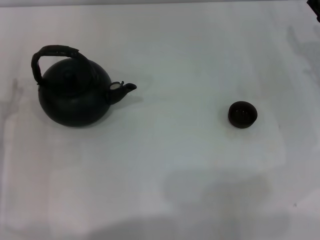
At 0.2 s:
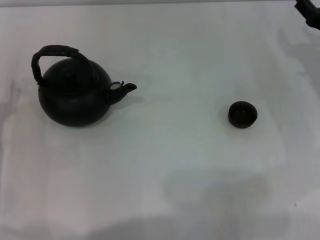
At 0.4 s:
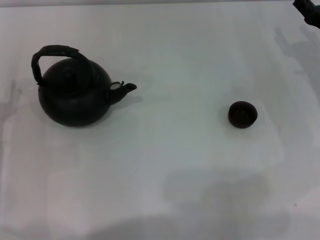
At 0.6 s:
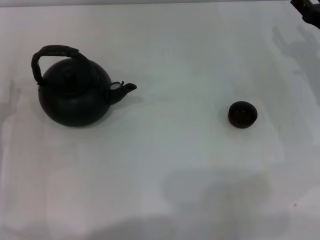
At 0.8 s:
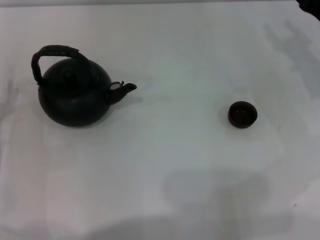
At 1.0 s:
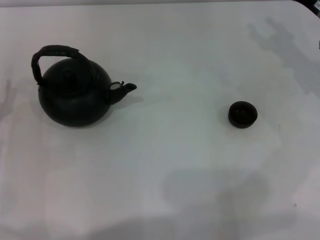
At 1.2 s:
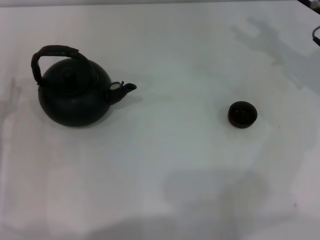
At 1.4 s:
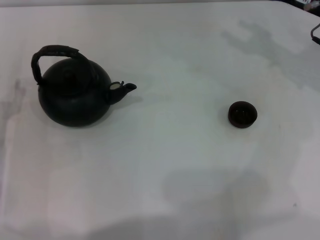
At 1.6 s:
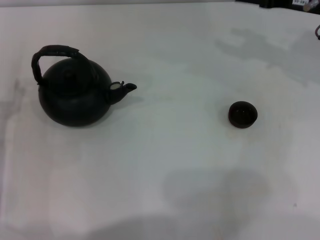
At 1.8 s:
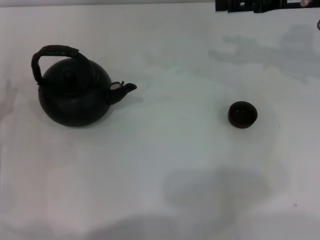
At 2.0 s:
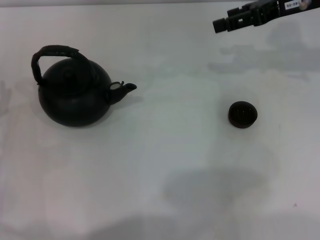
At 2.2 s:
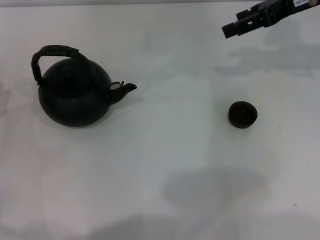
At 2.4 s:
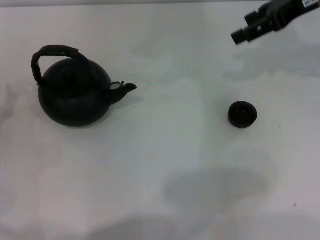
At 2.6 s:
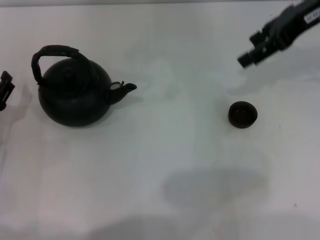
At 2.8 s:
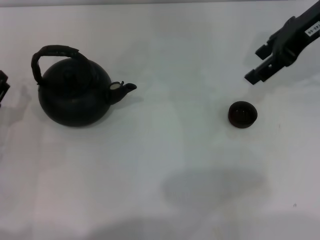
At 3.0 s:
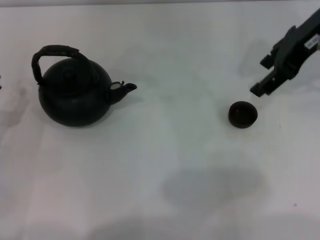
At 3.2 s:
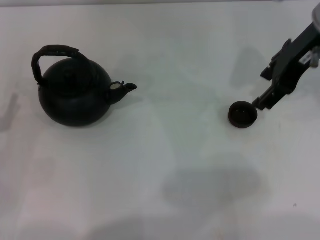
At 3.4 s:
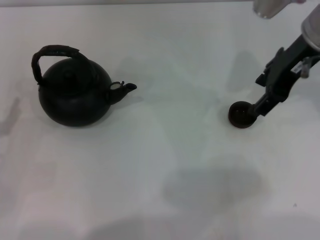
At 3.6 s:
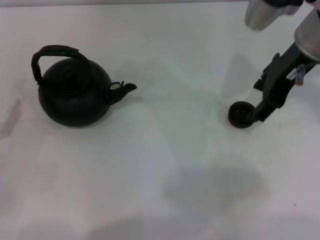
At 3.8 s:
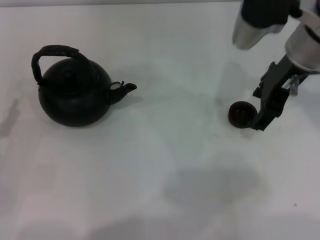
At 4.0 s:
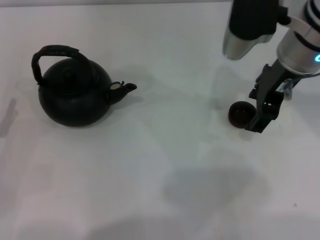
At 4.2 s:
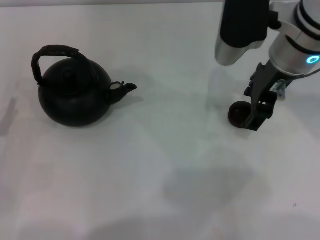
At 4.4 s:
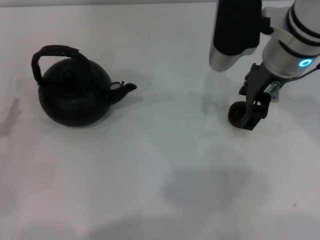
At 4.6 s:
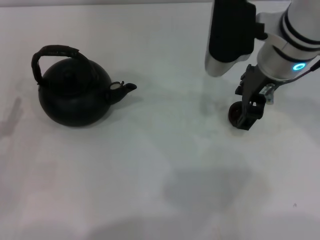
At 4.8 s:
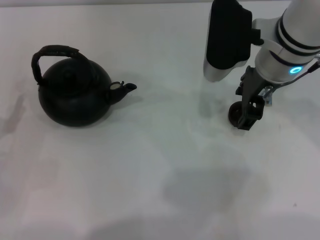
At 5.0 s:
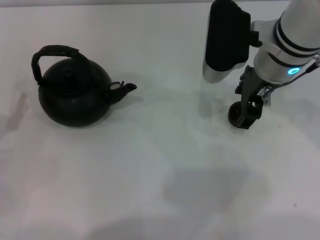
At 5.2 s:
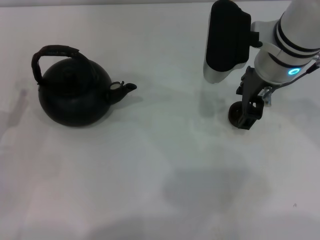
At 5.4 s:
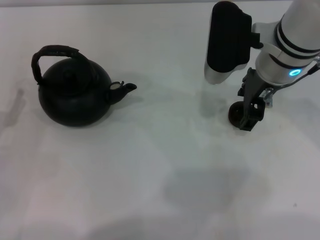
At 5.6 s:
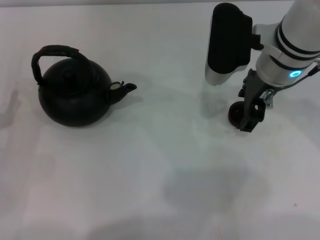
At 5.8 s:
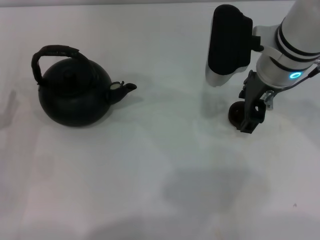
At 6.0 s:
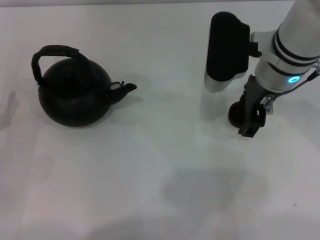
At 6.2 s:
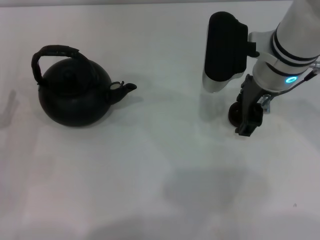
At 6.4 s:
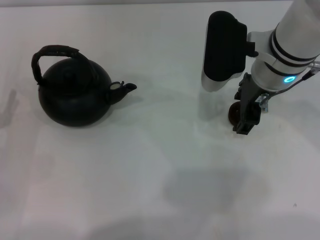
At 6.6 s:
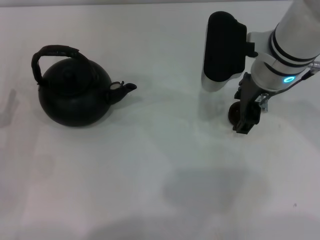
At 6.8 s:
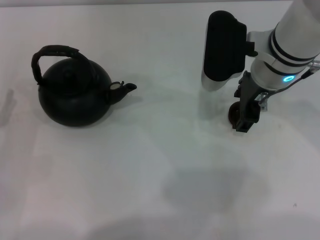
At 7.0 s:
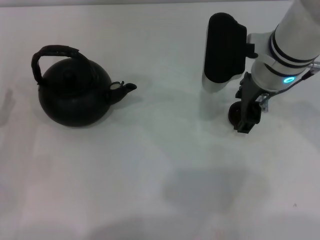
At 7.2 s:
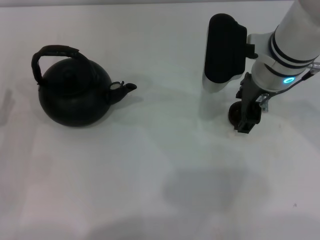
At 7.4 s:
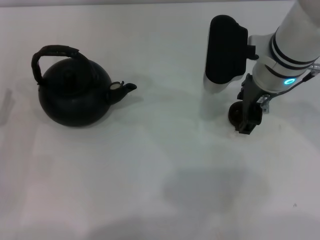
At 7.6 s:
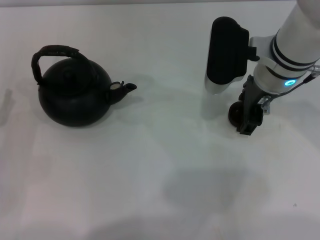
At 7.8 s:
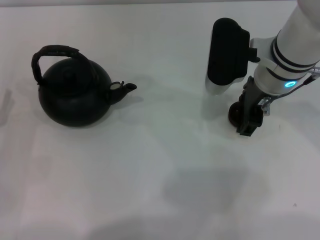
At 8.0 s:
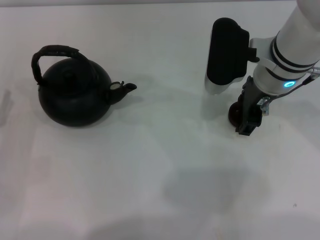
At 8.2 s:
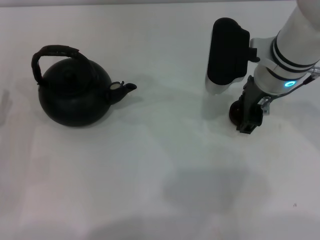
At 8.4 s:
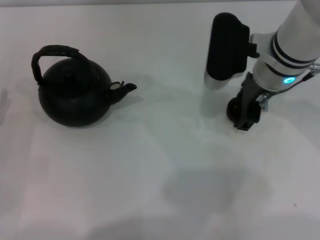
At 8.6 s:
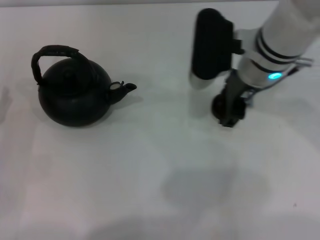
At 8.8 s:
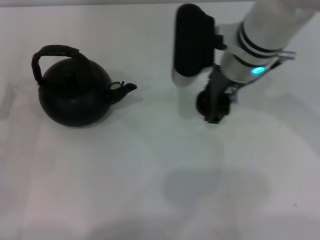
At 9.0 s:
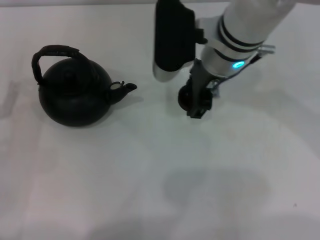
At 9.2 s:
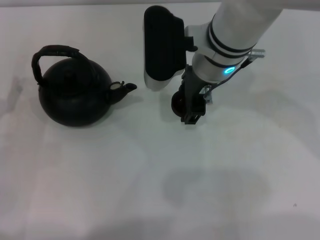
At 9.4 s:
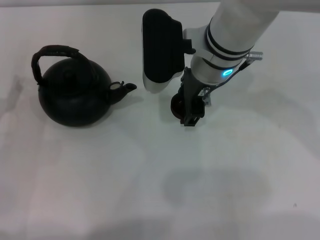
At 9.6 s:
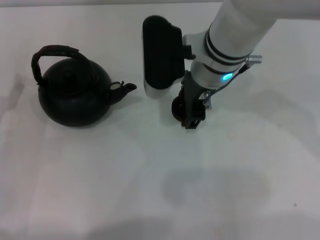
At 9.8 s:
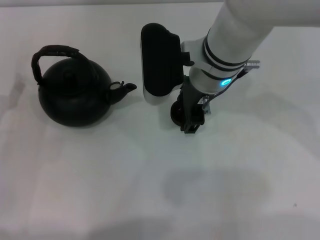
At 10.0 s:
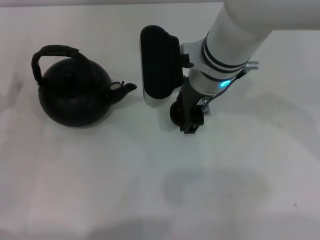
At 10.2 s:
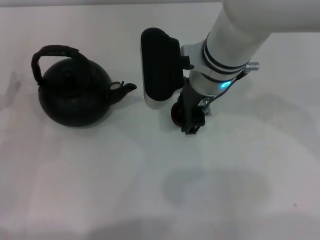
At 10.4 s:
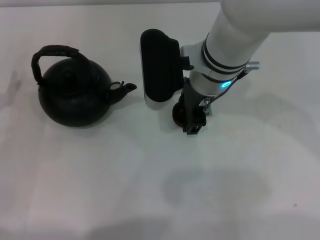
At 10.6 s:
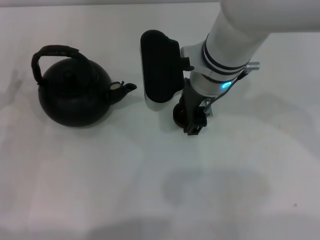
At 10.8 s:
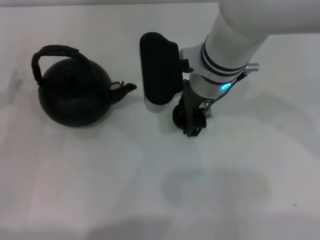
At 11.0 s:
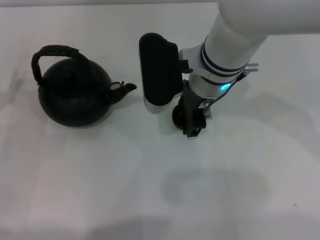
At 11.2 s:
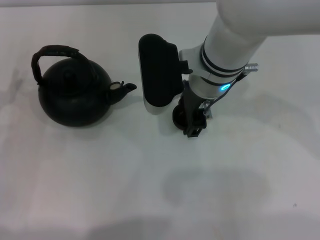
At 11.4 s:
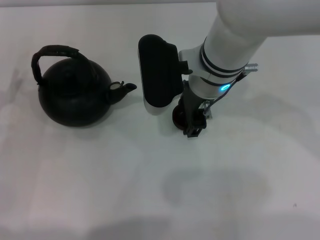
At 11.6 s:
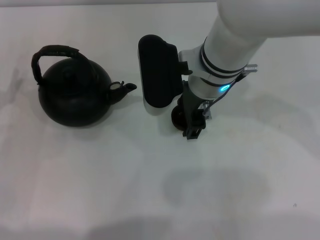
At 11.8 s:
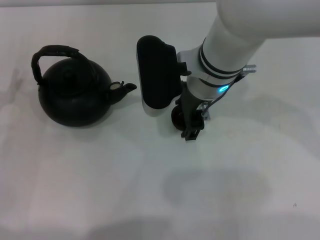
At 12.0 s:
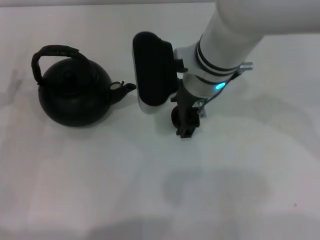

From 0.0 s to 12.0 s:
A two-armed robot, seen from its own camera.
Task of the whole recording: Grasp the handle of the teapot with one hand and pour tea into the teacup.
Step, from 0.0 s to 8.4 s: Pick up the teacup with the right gripper.
From 0.0 s to 1.6 s: The right gripper shifts some 10 cm upward and forward.
From 1.6 s to 3.0 s: The right gripper goes about 10 cm upward and to the left.
From 3.0 s to 4.4 s: The right gripper is displaced to the left and downward by approximately 10 cm.
From 4.4 s to 7.6 s: There are only small adjustments of the grippers.
From 7.6 s to 9.0 s: The right gripper travels to the left by roughly 5 cm.
From 9.0 s to 10.4 s: There are only small adjustments of the grippers.
From 10.4 s to 12.0 s: Neither gripper changes place.

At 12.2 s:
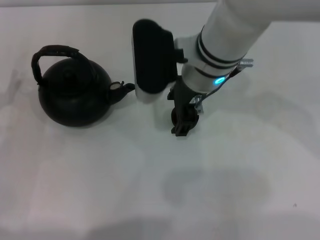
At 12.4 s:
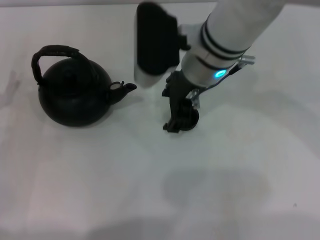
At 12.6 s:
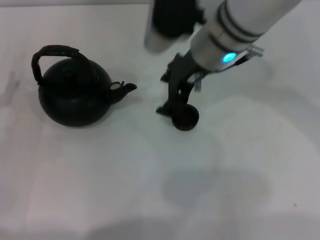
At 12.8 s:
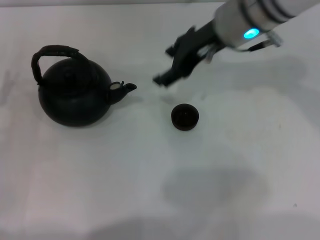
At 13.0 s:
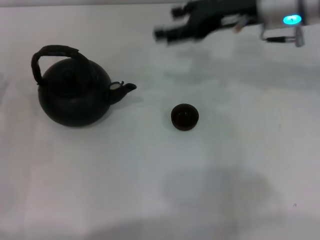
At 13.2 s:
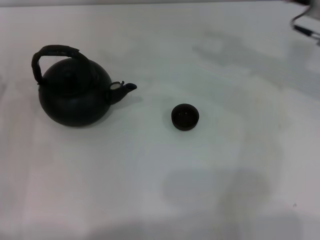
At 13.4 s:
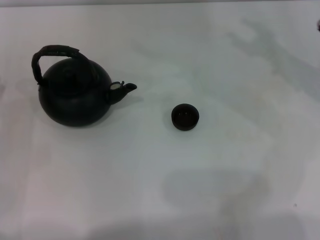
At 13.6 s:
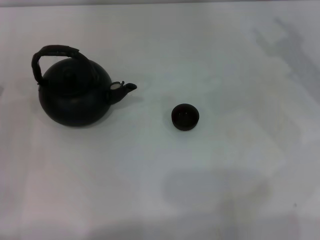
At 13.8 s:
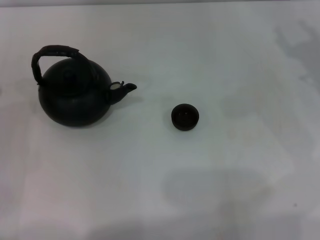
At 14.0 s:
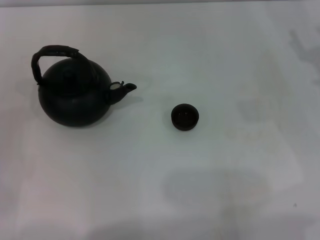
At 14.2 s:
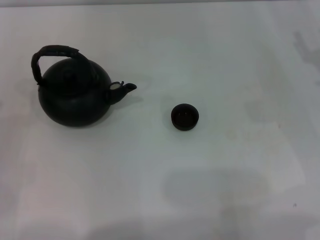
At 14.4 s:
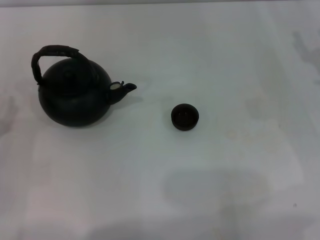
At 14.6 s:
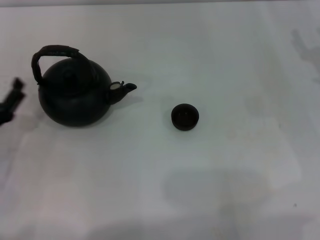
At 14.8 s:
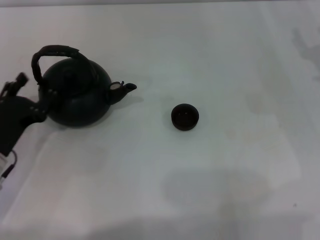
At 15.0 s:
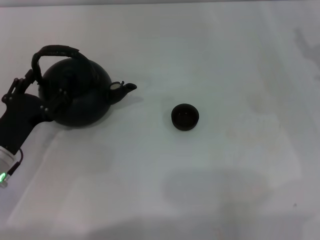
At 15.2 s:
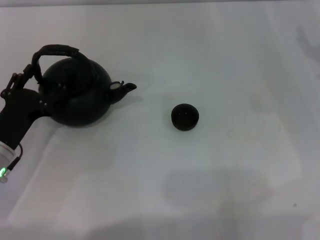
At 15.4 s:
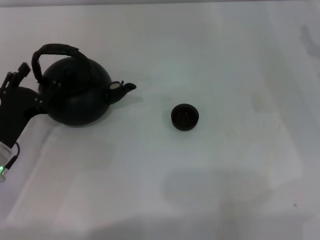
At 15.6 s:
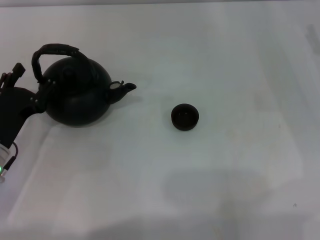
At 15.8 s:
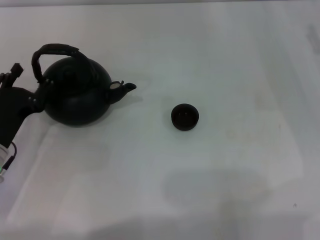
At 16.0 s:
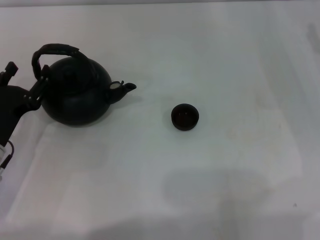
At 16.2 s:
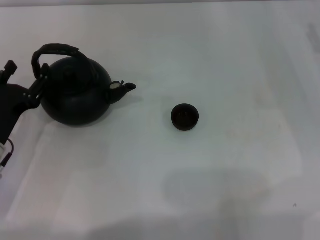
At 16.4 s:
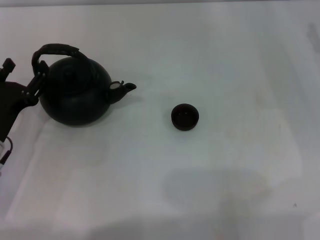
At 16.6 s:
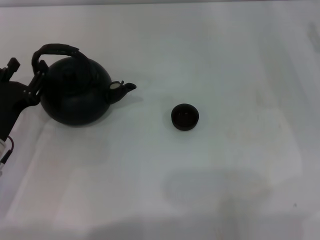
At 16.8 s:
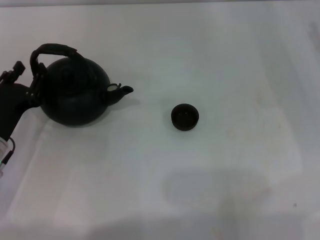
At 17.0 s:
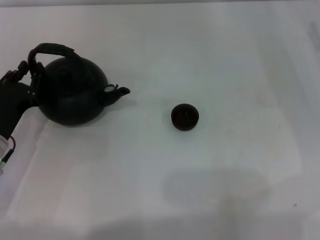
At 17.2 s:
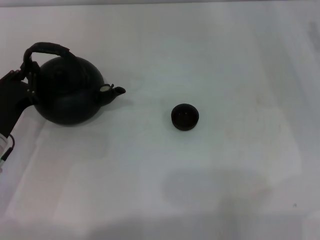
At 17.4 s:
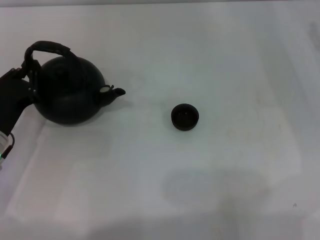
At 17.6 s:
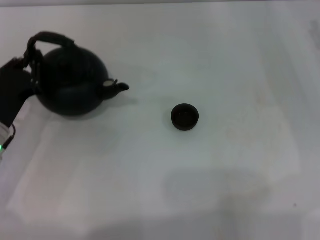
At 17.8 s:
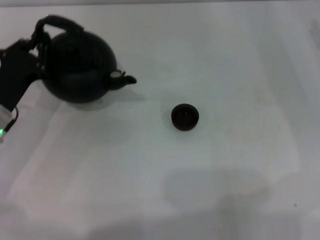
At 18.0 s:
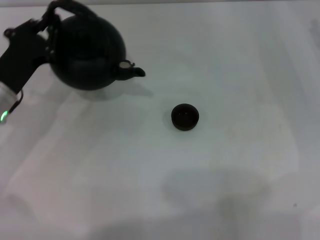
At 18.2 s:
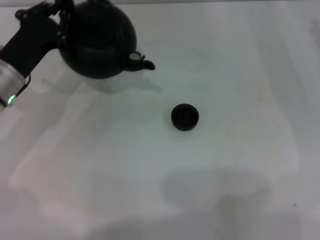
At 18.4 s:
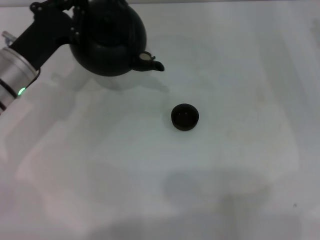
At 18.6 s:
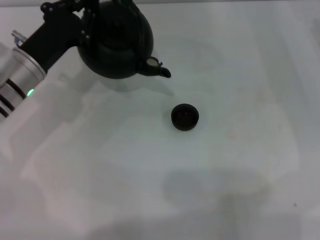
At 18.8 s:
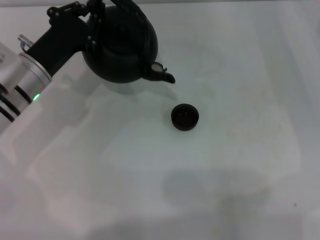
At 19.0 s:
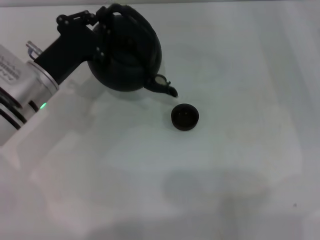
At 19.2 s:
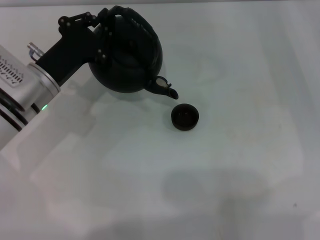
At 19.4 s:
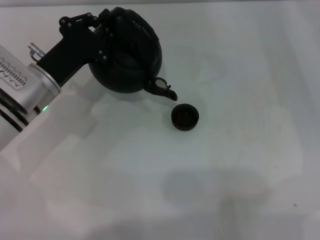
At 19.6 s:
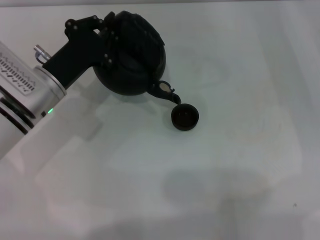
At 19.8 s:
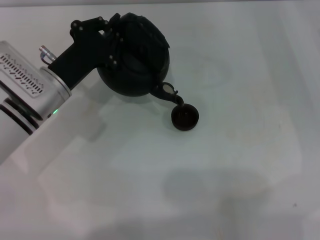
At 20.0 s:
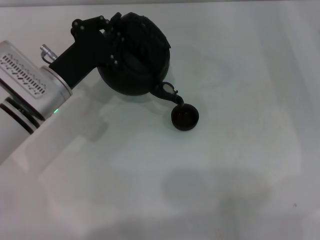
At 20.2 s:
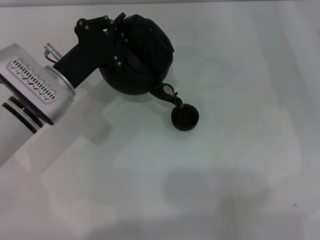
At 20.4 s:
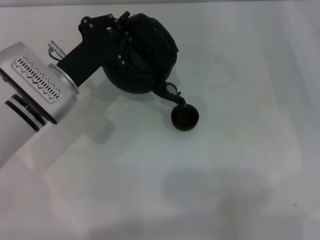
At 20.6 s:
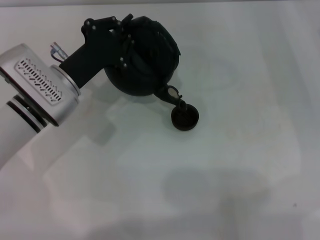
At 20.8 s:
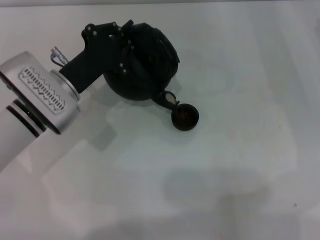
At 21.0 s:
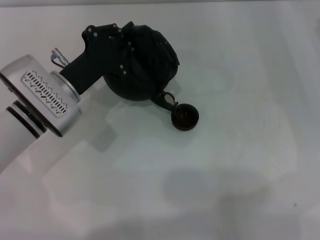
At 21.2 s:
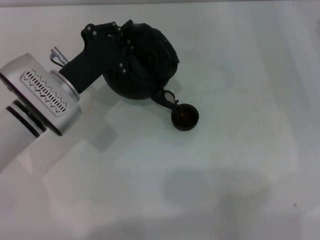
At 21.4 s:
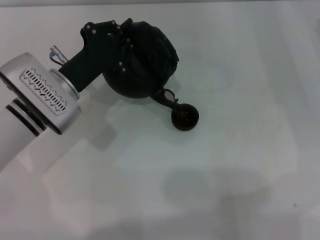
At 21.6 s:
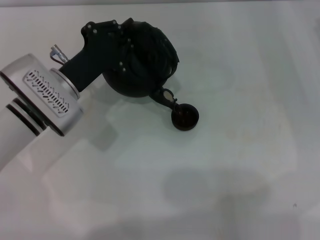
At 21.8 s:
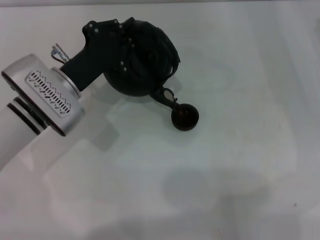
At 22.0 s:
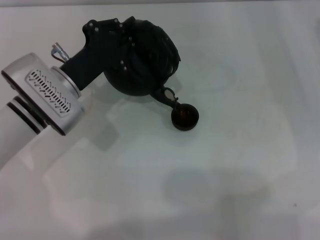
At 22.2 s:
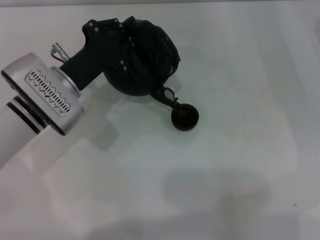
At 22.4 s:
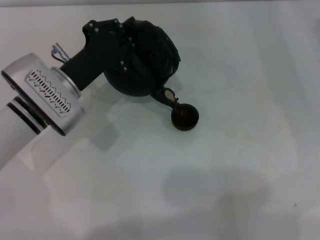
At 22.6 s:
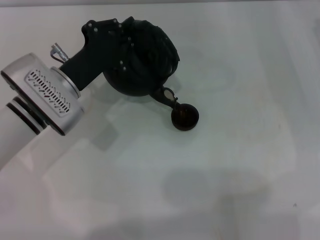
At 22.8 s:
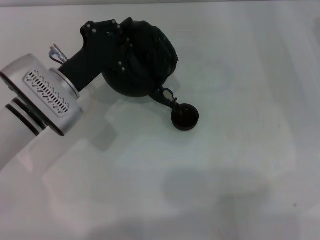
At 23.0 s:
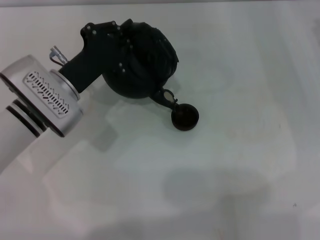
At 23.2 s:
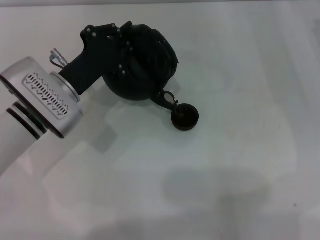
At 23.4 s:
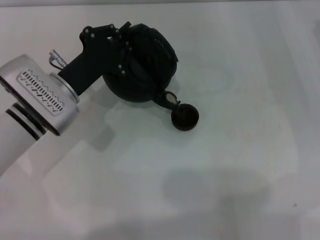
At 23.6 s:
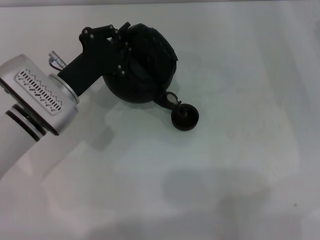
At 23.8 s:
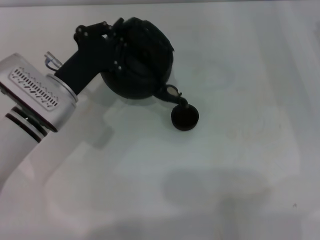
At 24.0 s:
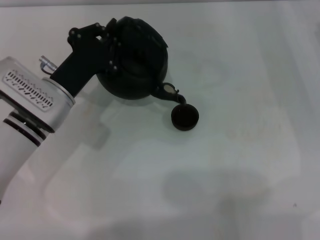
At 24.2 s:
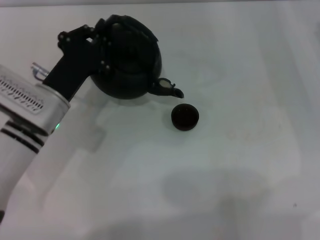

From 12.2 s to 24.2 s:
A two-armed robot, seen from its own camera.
Task of the whole recording: Grasp the handle of the teapot with one hand and pour tea into the teacup.
Step, from 12.8 s to 17.6 s: Pick up the teapot with the left gripper.
From 12.2 s to 13.8 s: The right gripper moves to the right, approximately 25 cm.
From 13.8 s to 15.2 s: The left gripper travels to the right by roughly 10 cm.
From 15.2 s to 16.6 s: The grippers move only a little.
From 16.6 s to 18.2 s: The left gripper is displaced forward and upward by some 10 cm, and closes its fingers.
From 18.2 s to 19.8 s: The left gripper is displaced to the right by roughly 5 cm.
From 19.8 s to 21.2 s: The grippers move only a little.
From 21.2 s to 22.6 s: Neither gripper changes place.
